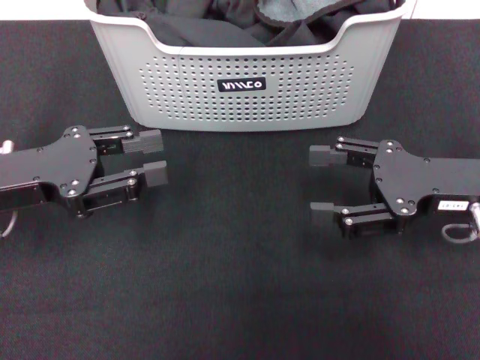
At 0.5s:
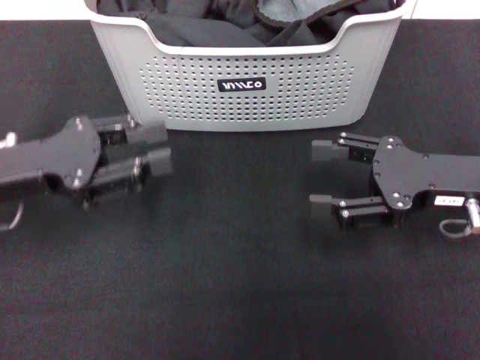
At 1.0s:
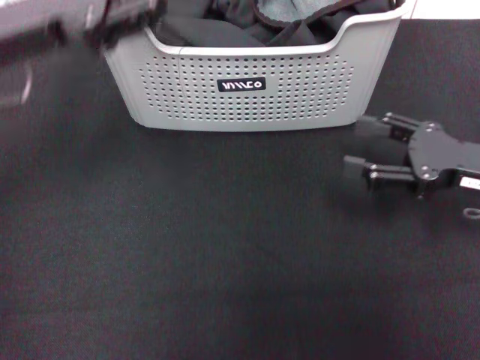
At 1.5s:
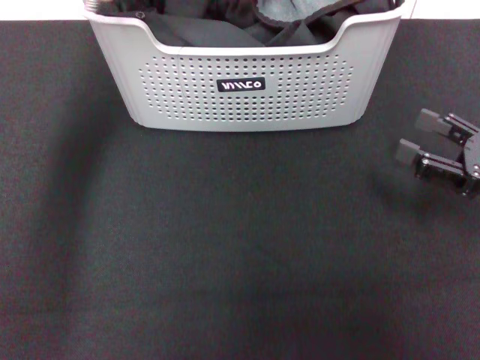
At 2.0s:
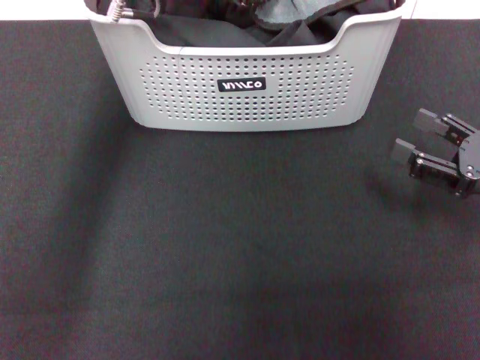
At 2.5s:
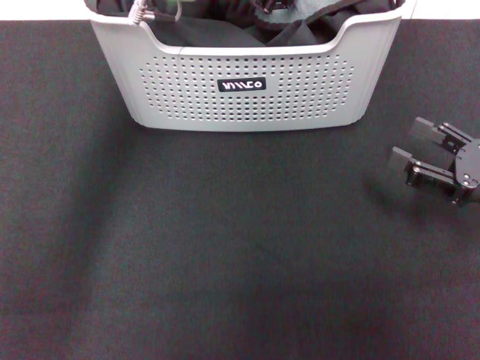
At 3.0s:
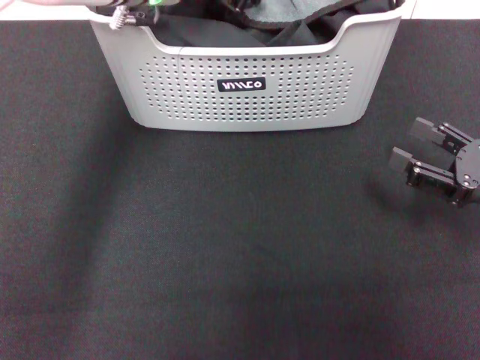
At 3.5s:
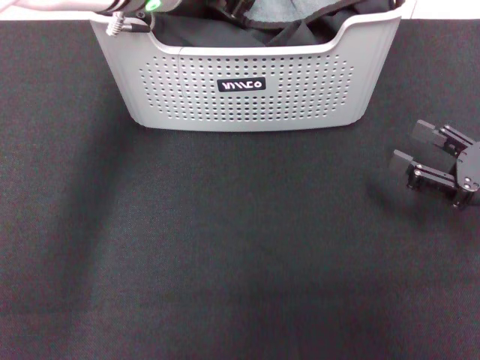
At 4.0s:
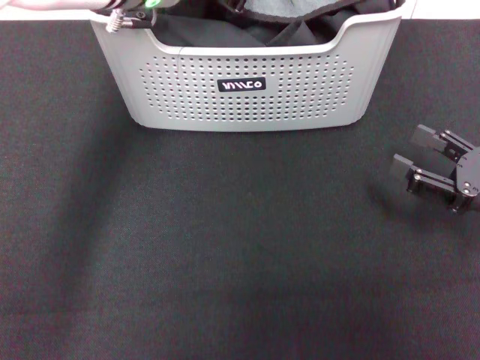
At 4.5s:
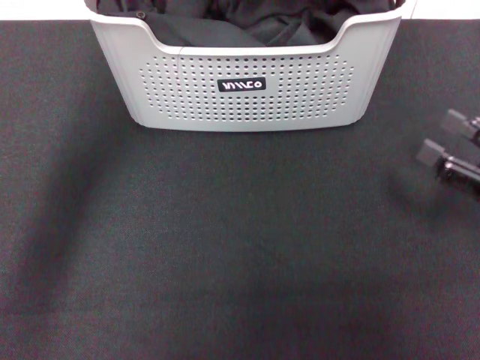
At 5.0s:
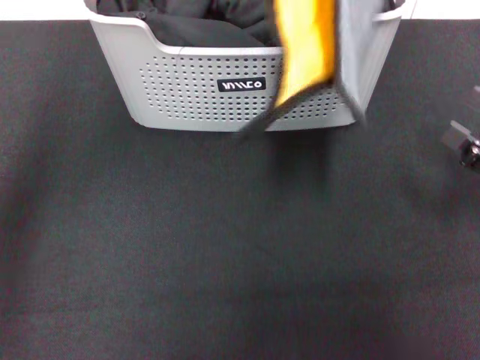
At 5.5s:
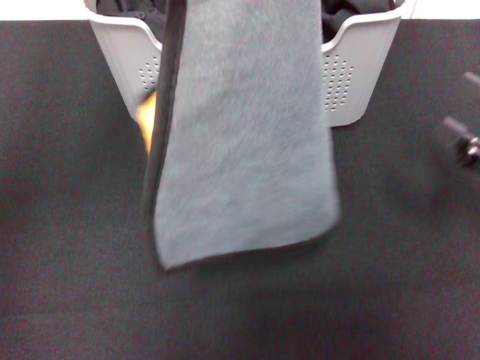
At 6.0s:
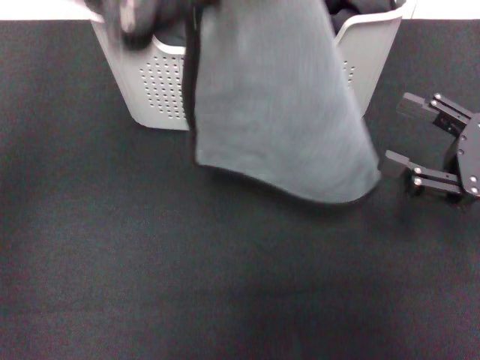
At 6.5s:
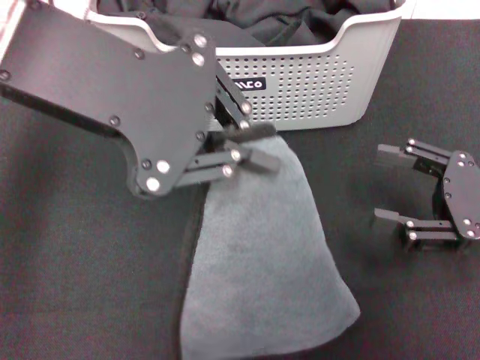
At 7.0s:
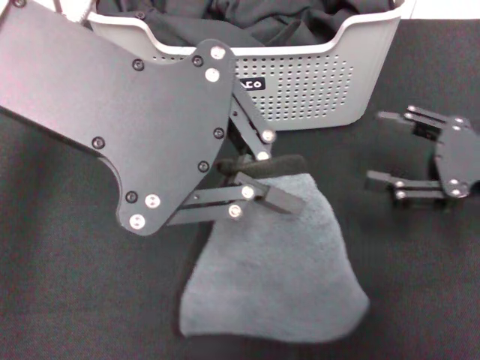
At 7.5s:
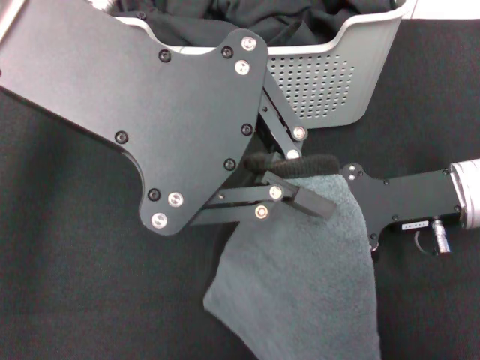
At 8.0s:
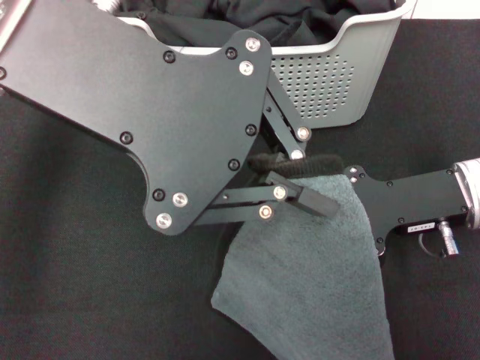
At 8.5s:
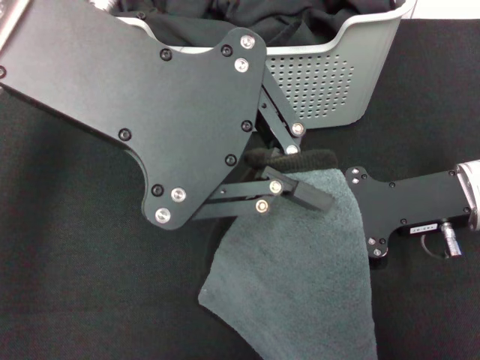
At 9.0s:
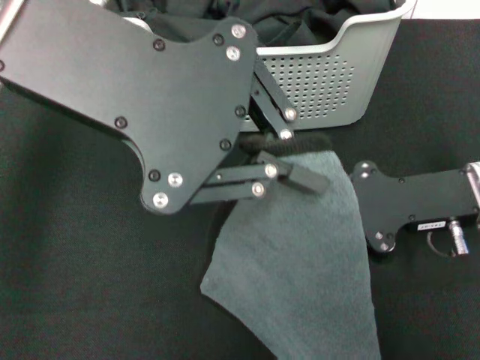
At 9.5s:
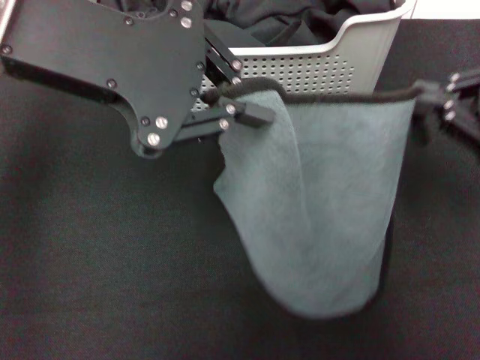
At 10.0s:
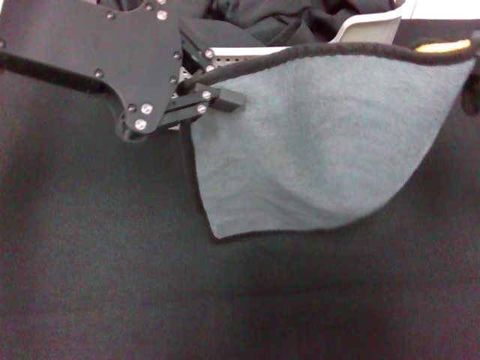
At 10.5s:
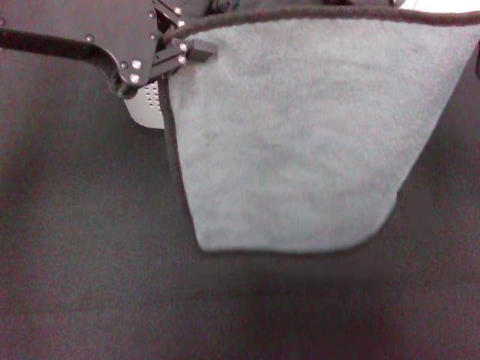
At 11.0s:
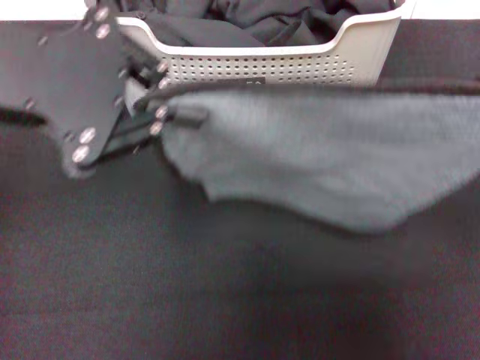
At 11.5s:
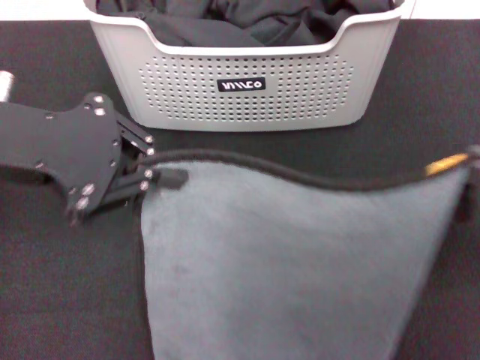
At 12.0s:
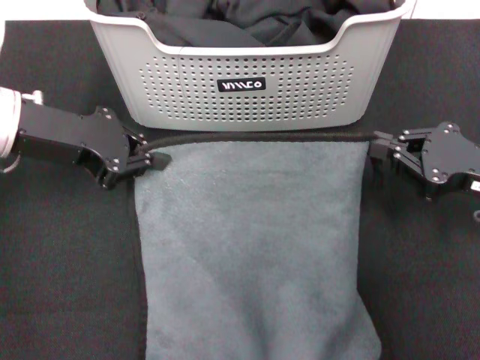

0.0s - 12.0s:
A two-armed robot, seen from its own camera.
Task of the whole recording: pick up the towel from the storage box and lay it flat on the black tablecloth.
Step, 0.0s - 3.5s: Pick up a towel with the left gripper.
Step, 4.0s - 9.0s: Spread the towel flat with the left gripper.
0.0s - 2.0s: The left gripper shifts about 25 cm to the right, forward and upward. The right gripper heads to the right, covering roughly 5 cm.
2.0s - 4.0s: The left gripper closes.
4.0s - 6.0s: The left gripper travels backward, upward and to the left by approximately 20 cm.
6.0s - 8.0s: The right gripper heads to the left, covering some 10 cm, and closes.
8.0s - 10.0s: The right gripper goes about 15 cm upward, to the right and backward, and closes its fingers. Meanwhile the left gripper moves some 5 cm.
10.0s - 12.0s: The right gripper goes approximately 15 cm downward, while the left gripper heads downward and to the left, covering roughly 15 cm.

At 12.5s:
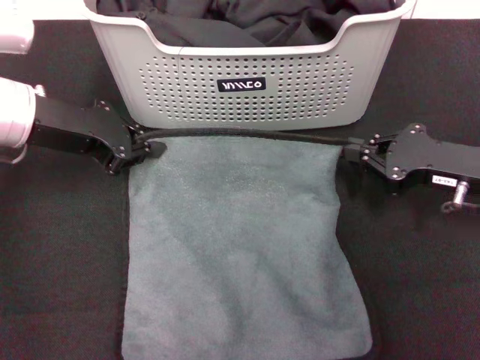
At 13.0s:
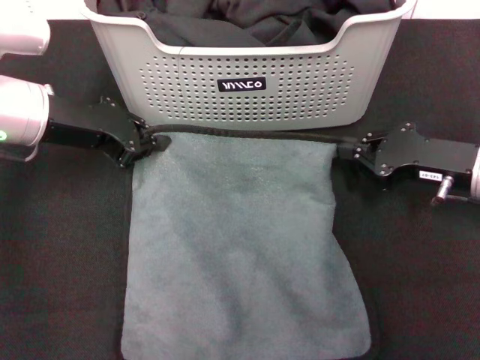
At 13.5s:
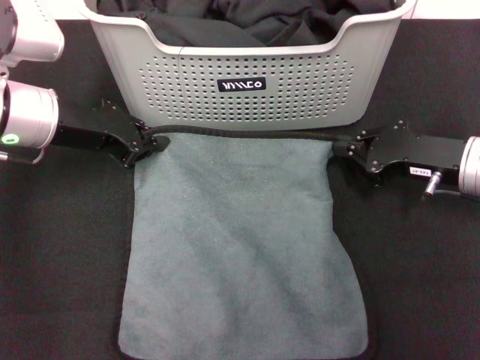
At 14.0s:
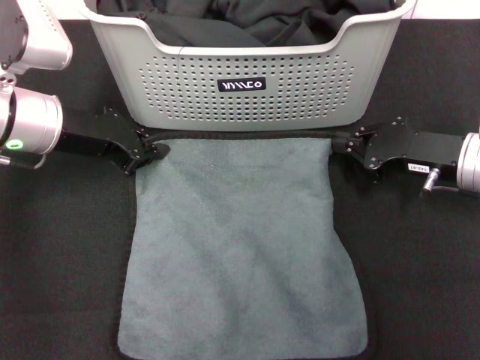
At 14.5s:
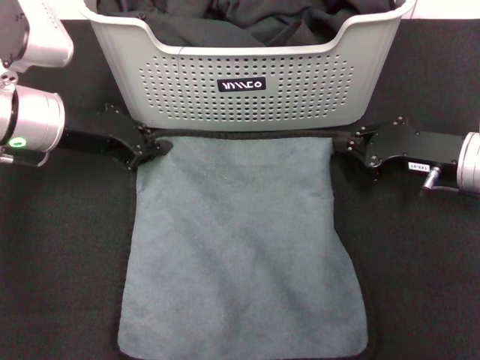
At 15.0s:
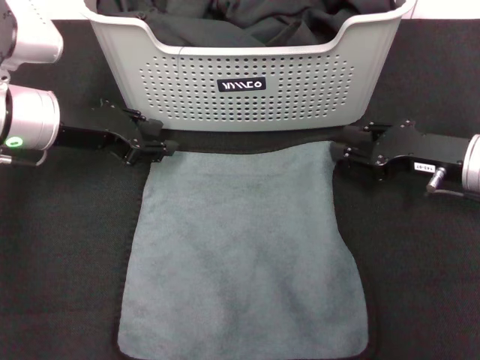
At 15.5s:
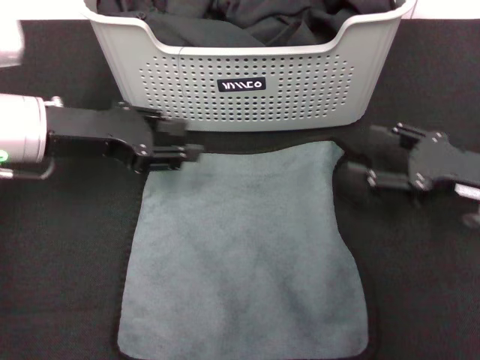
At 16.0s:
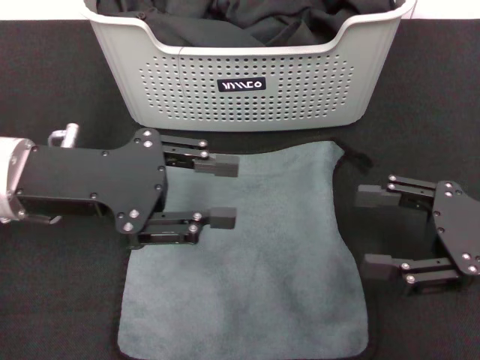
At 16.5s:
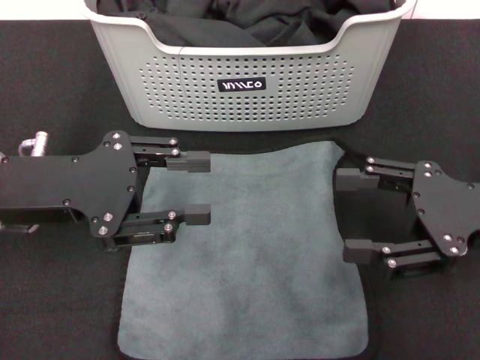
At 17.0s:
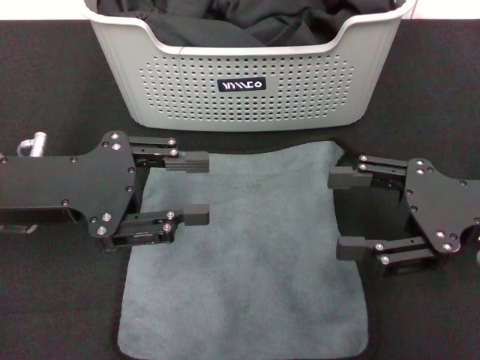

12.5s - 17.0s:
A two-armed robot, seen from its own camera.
Task of the whole recording: pick up the towel from the storage box and lay it flat on the black tablecloth.
Step, 12.5s - 14.5s: Spread the towel flat with the right gripper.
12.5s - 14.5s: The grippers stay close to where they were, moving slightly.
14.5s - 17.0s: The left gripper moves backward, approximately 10 cm, and opens up. Meanwhile the right gripper is displaced backward and upward by some 10 cm, and opens its fingers.

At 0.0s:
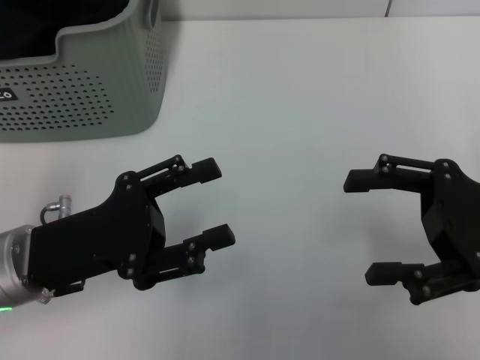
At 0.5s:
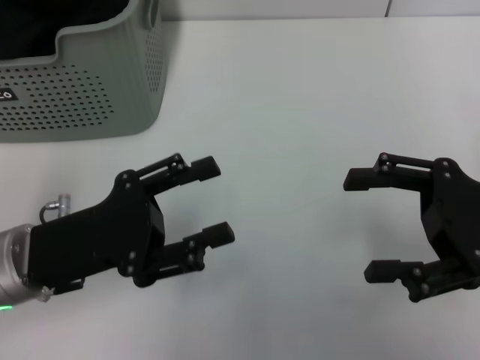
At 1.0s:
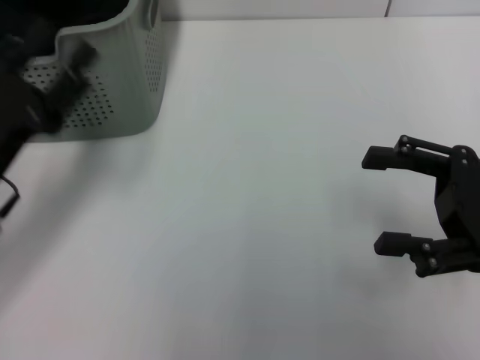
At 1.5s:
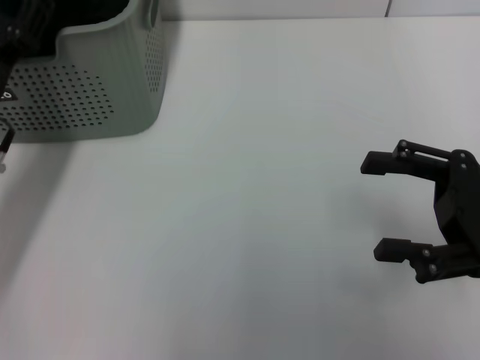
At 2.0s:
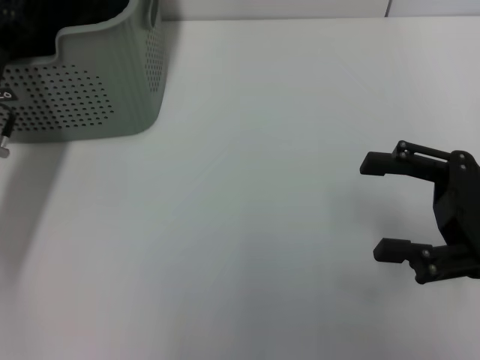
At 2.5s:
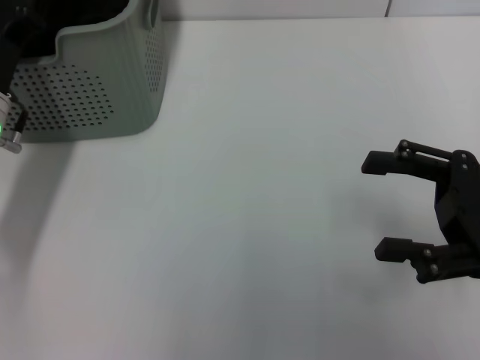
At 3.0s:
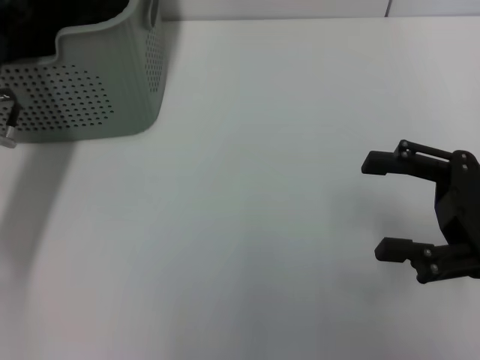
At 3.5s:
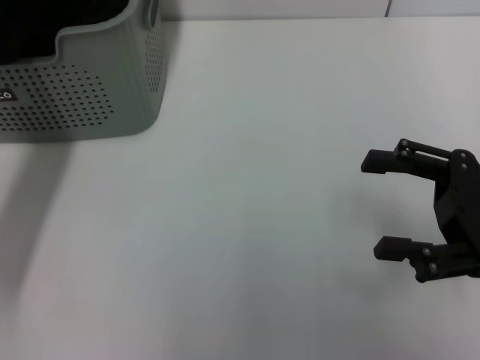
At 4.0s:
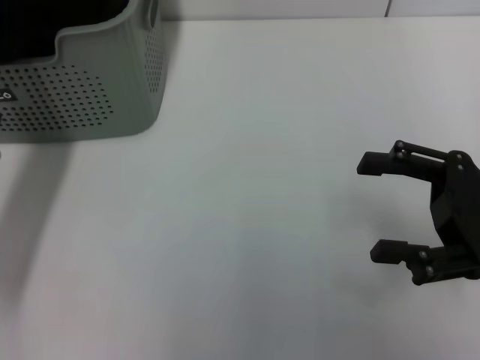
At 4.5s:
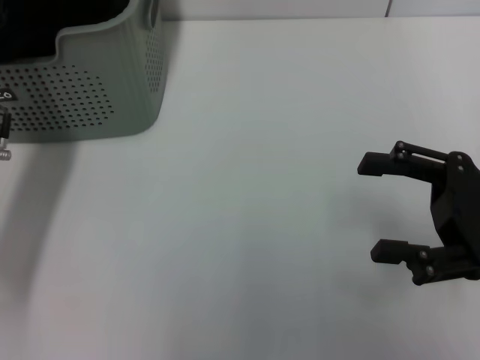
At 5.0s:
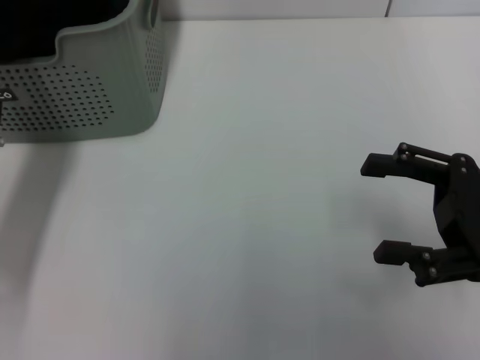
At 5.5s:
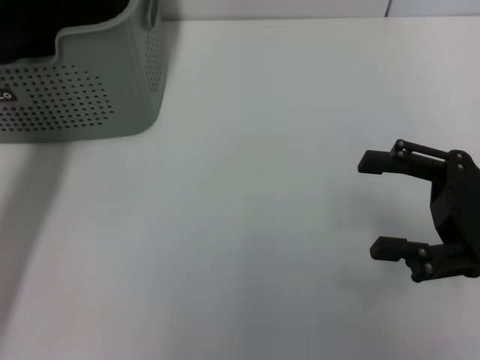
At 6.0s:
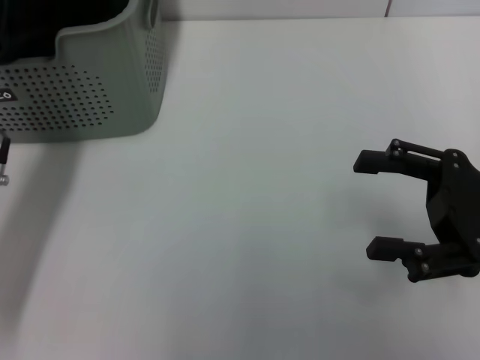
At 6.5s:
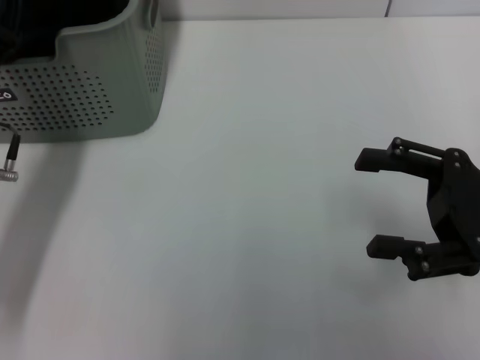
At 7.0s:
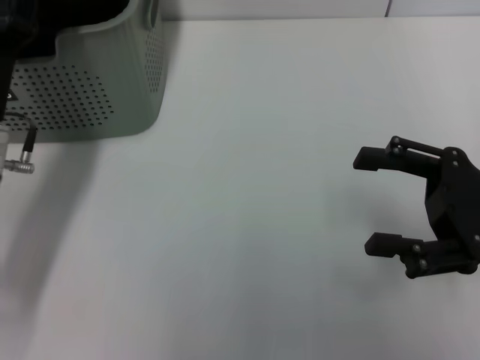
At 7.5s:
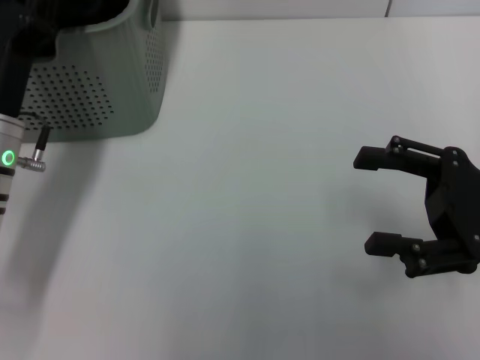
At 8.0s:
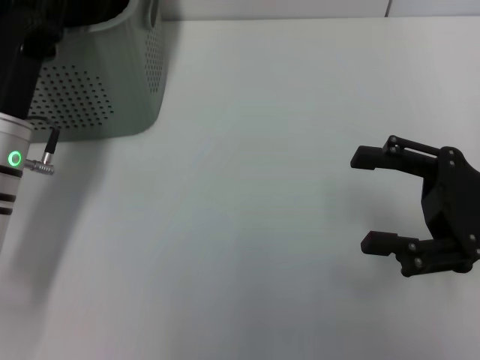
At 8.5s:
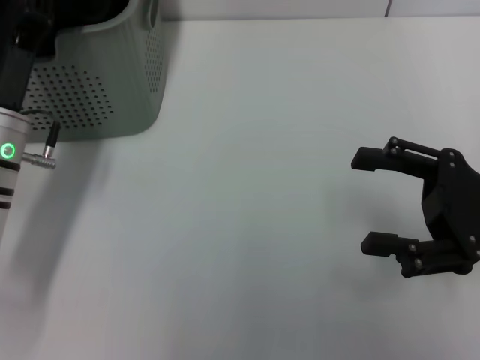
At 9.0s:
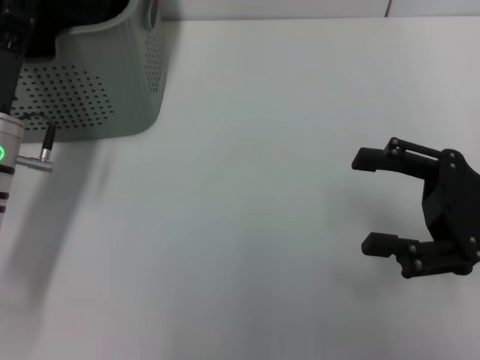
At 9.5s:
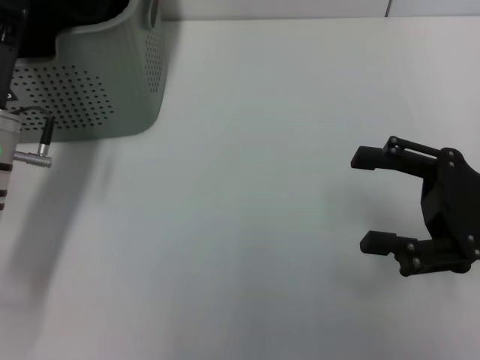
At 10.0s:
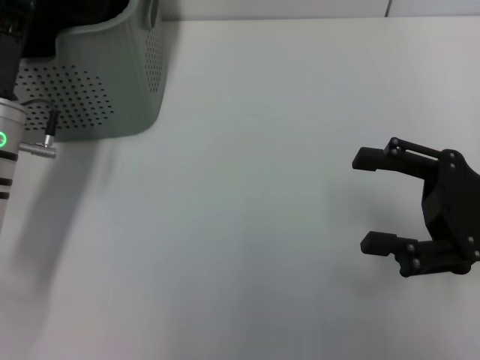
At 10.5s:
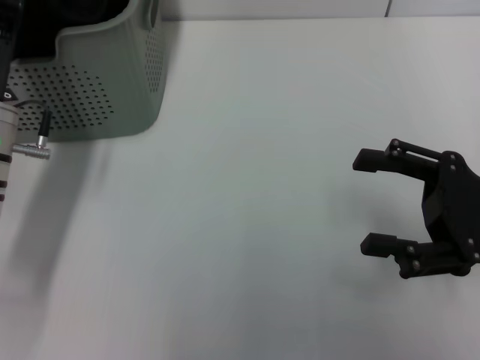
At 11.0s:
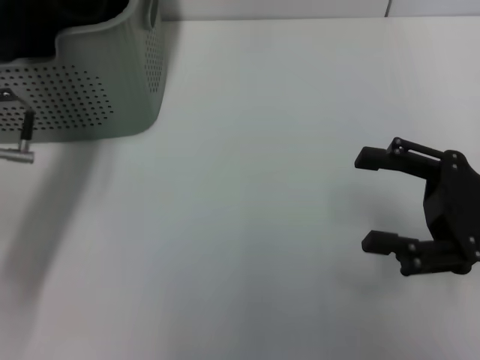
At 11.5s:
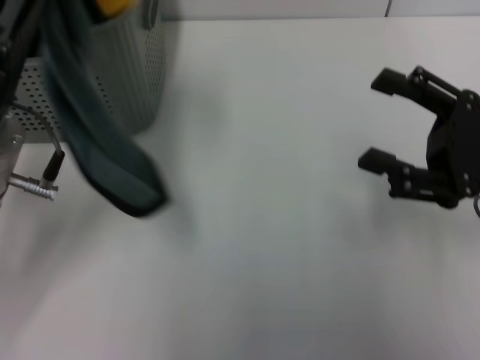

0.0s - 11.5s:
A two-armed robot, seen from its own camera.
Task of the whole recording: pick up the towel from the storage box and lay it flat on the table.
Step, 0.0s - 3.0s: Pick up a towel with the left gripper.
0.0s - 2.0s: The left gripper heads forward, covering about 10 cm.
2.0s - 4.0s: The left gripper closes its fingers.
4.0s - 6.0s: The left gripper opens.
6.0s - 7.5s: The grippers stay close to where they were, moving slightly.
9.5s - 11.5s: The left gripper is displaced upward by roughly 5 cm, and closes up.
